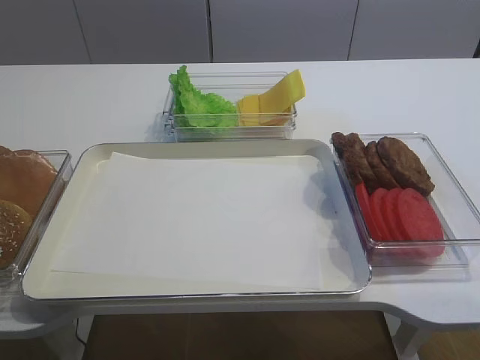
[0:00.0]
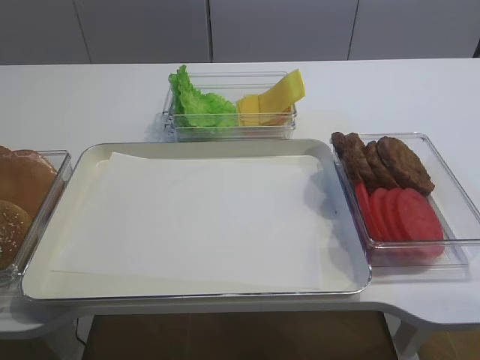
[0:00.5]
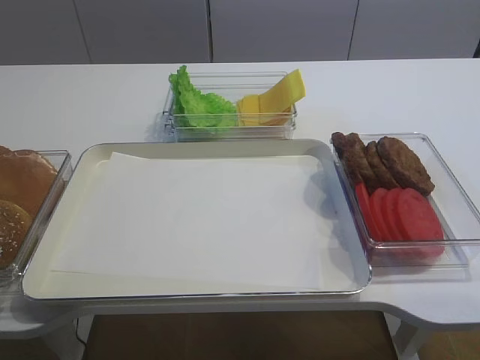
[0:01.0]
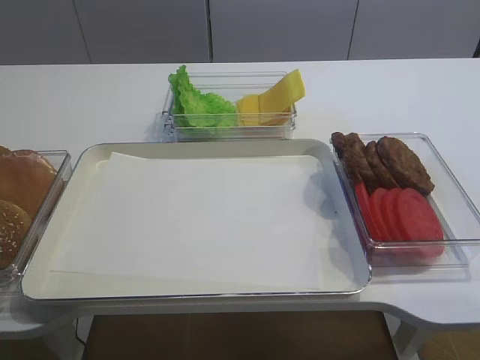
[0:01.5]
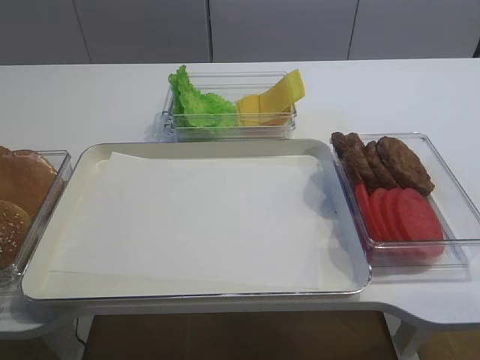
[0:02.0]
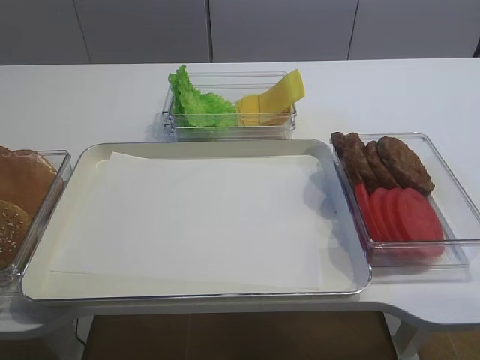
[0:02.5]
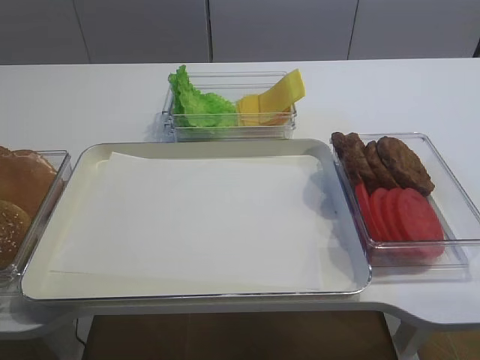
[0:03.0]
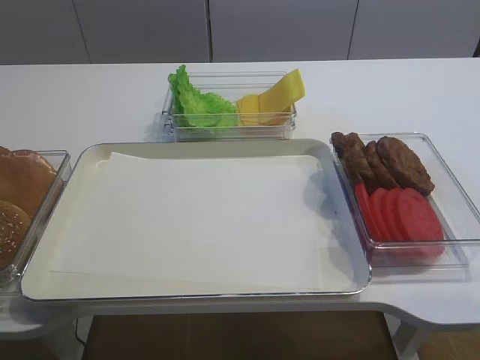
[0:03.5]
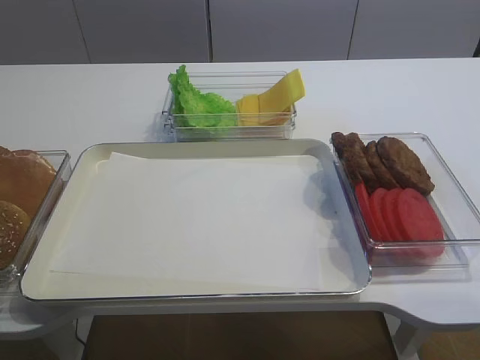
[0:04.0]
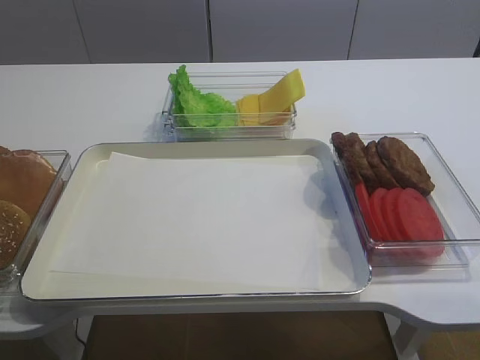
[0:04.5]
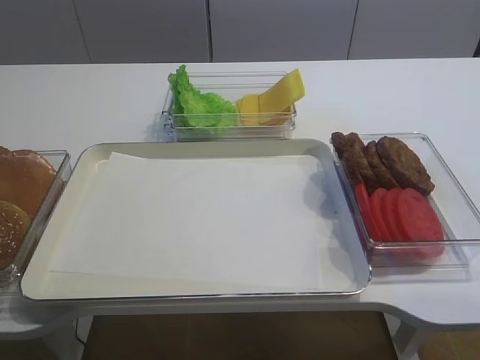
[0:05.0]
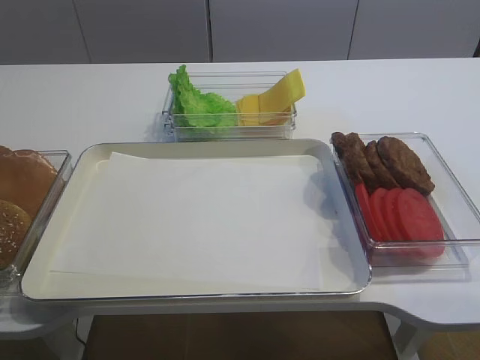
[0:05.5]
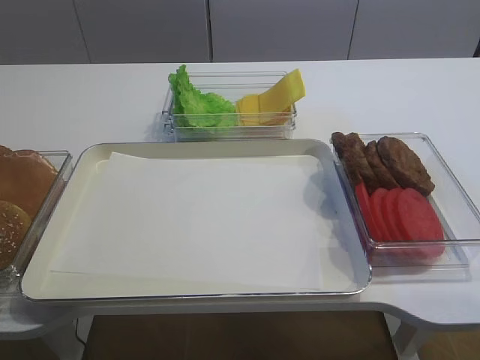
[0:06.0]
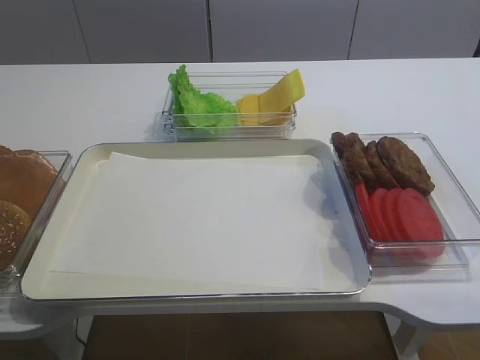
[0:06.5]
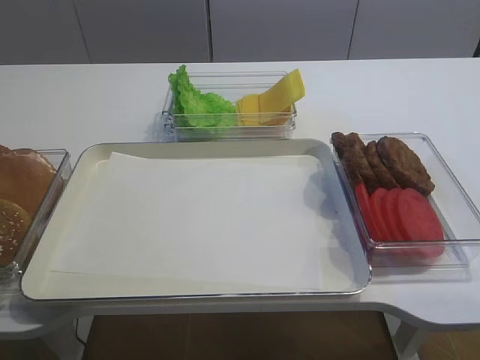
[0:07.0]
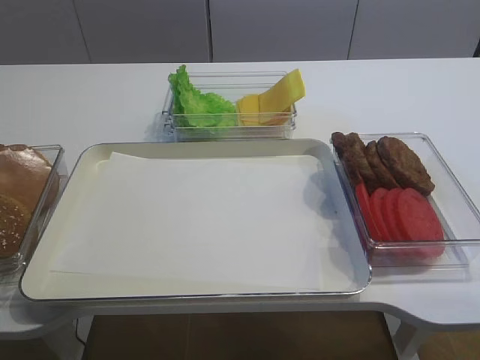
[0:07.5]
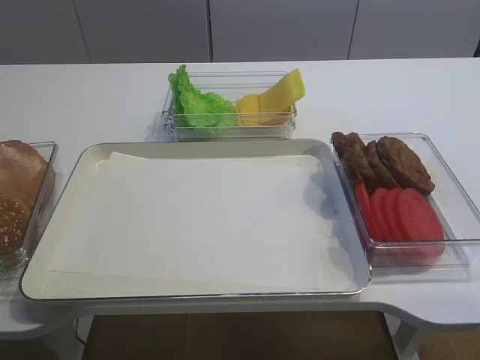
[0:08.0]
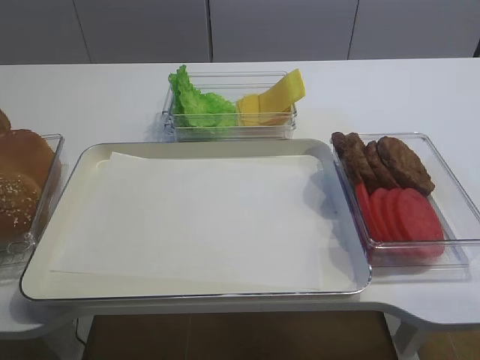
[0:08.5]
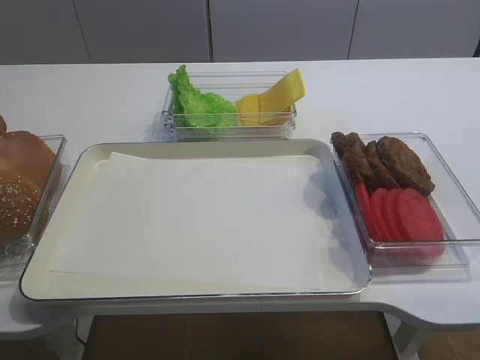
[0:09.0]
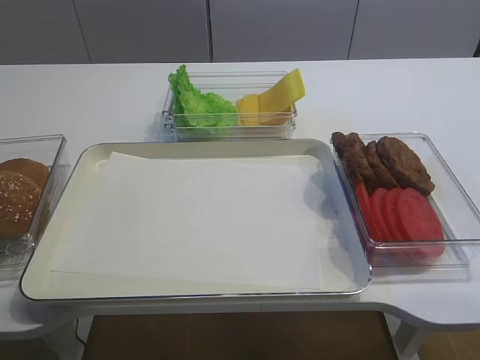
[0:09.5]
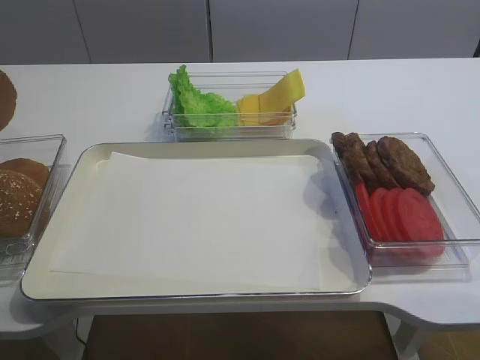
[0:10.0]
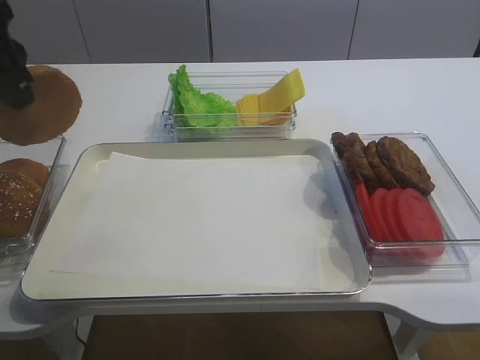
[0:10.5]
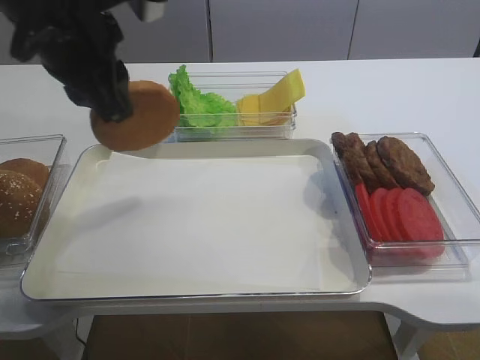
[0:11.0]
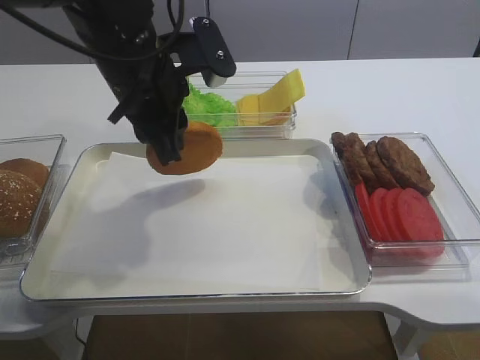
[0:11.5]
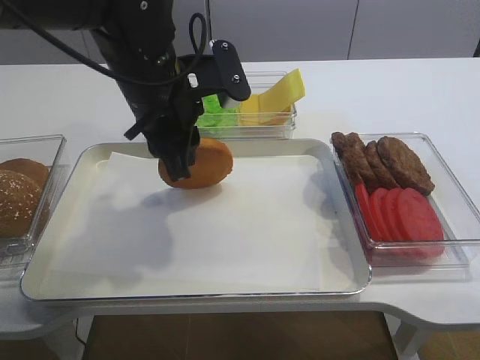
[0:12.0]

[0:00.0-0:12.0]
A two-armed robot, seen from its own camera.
Step, 0:00.0 to 0:09.0: Pick up the bread slice with the left gripper.
0:06.0 to 0:08.0: The left gripper closes its fingers.
0:08.0 to 0:10.0: The left gripper goes about 10 cm upward and to the right.
0:10.0 to 0:12.0: The left gripper is displaced to the right by about 20 cm.

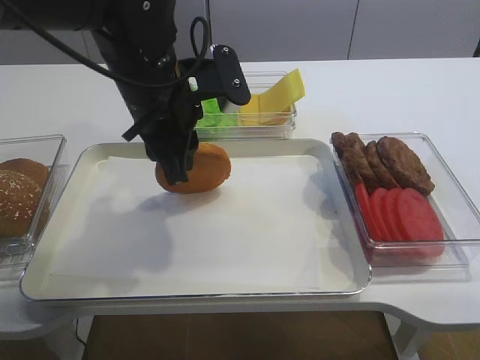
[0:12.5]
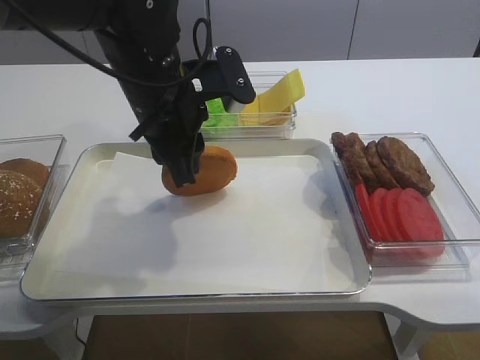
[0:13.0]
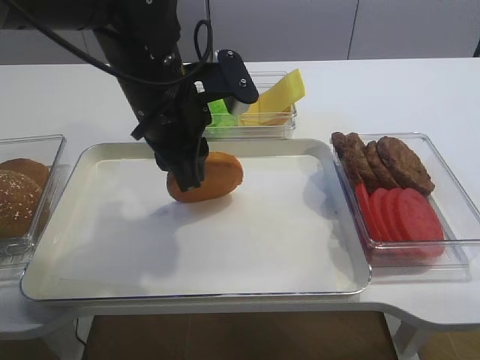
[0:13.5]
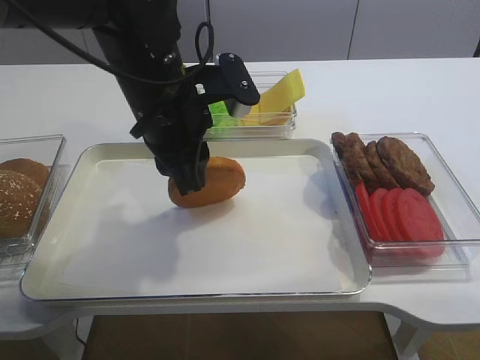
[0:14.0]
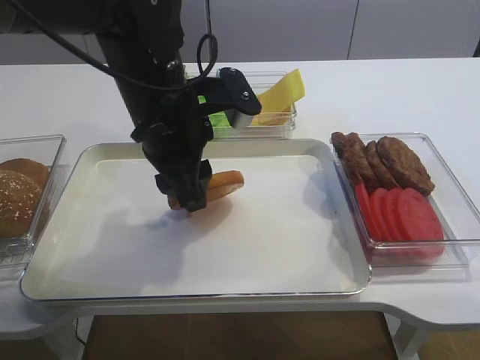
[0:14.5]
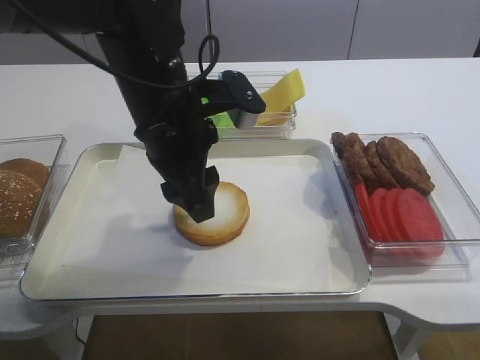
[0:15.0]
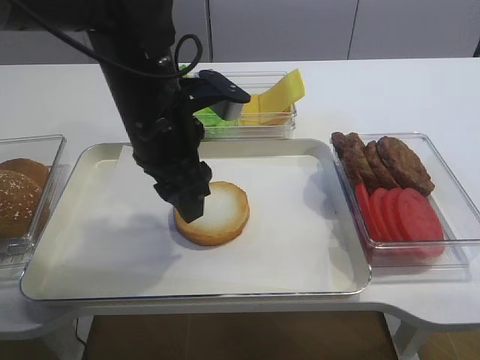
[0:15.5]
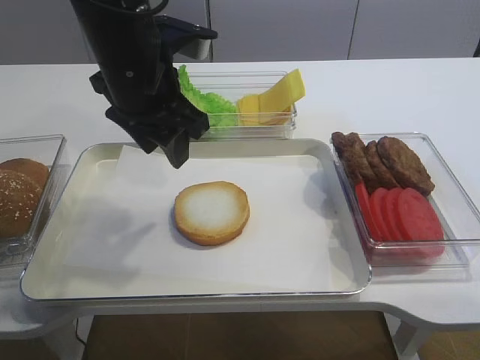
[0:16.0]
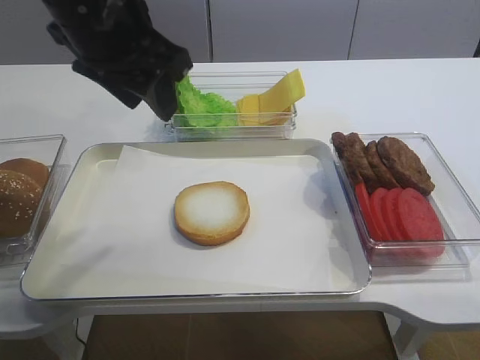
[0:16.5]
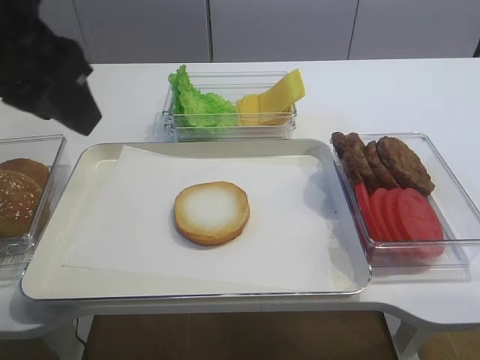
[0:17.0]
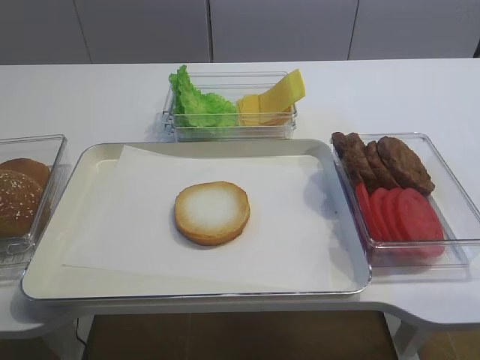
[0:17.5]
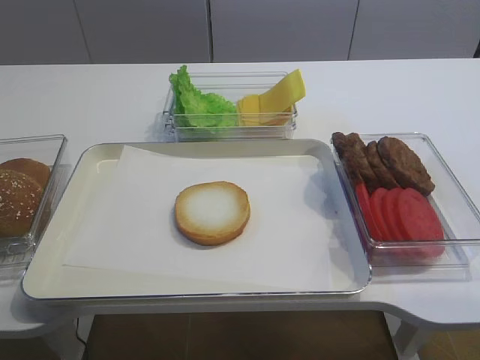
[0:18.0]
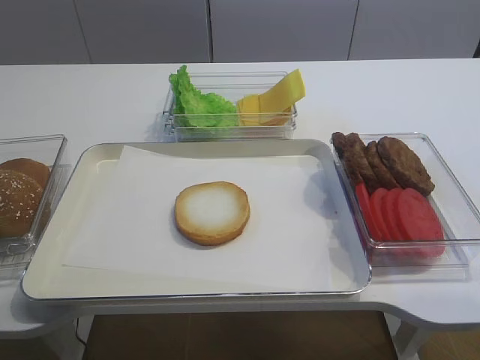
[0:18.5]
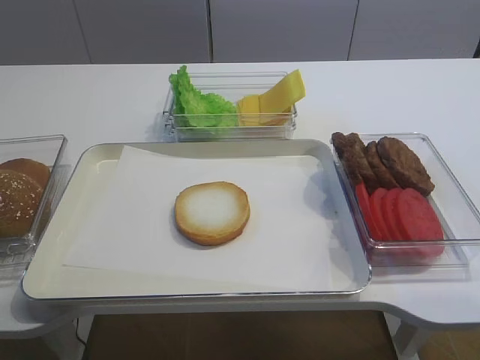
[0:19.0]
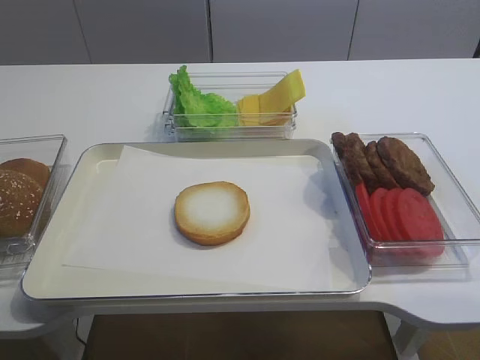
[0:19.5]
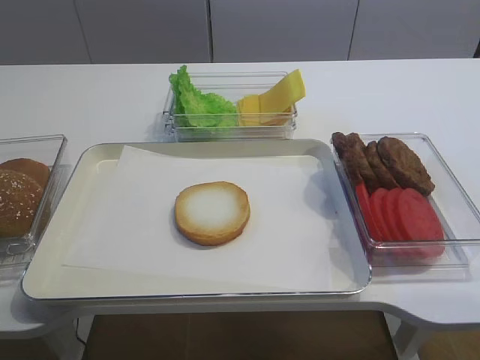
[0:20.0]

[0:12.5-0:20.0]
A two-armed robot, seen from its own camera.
Step, 0:12.5 to 0:15.5: Place the bread slice on the tray with the left gripper.
0:12.5 to 0:14.5: The left gripper opens its fingers.
0:14.5 to 0:16.5: The left gripper heads upward, covering some 10 cm.
0:16.5 to 0:18.0: The left gripper shifts approximately 30 cm backward and to the left.
